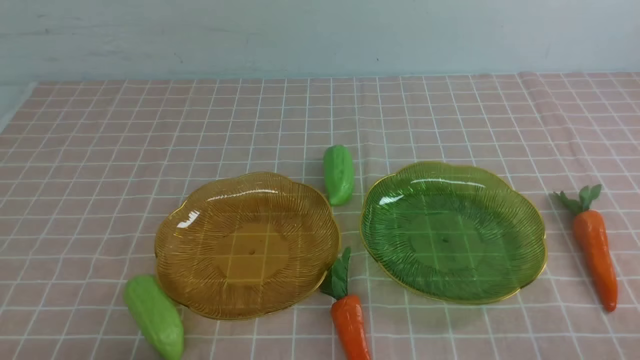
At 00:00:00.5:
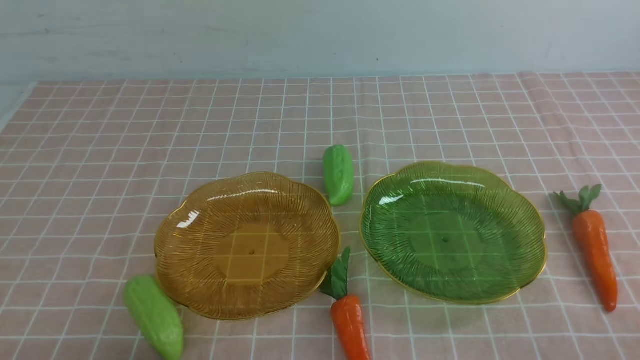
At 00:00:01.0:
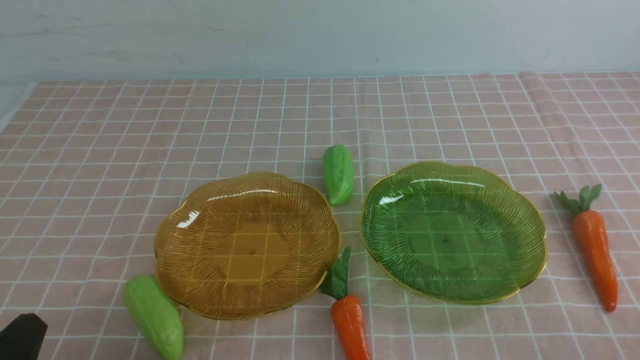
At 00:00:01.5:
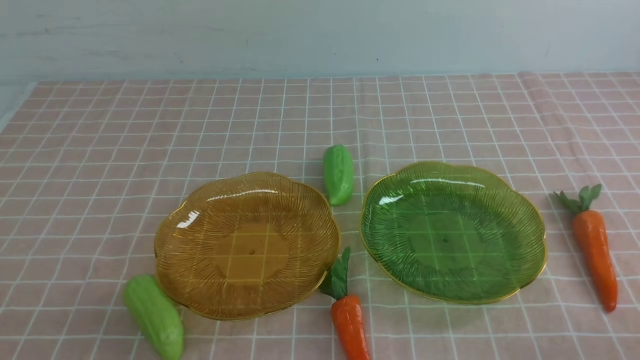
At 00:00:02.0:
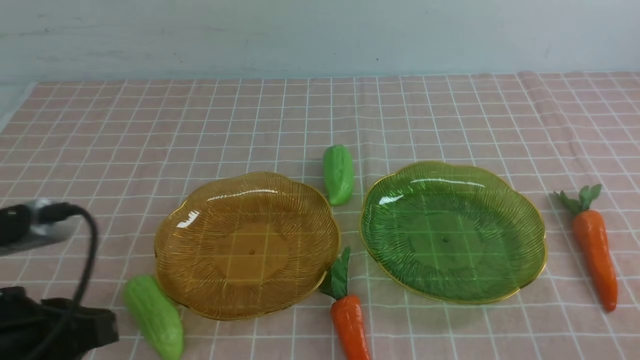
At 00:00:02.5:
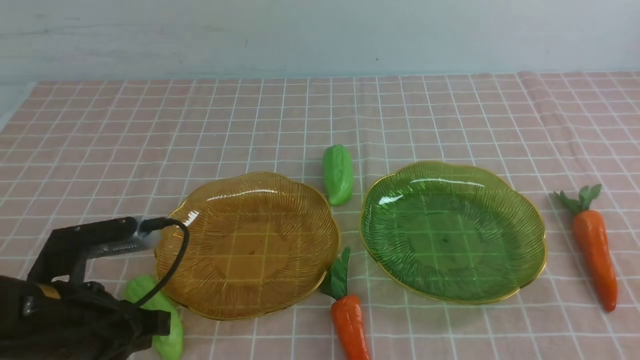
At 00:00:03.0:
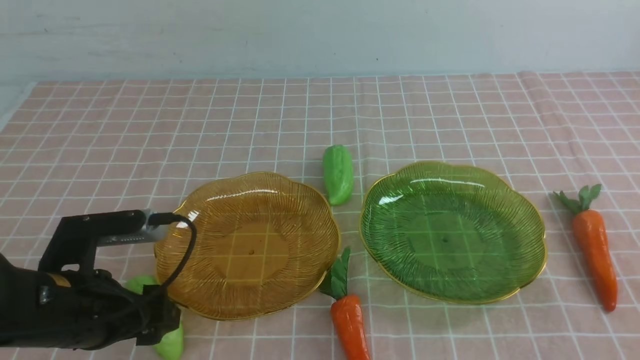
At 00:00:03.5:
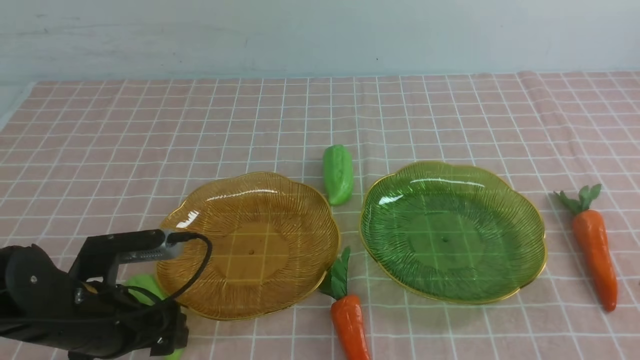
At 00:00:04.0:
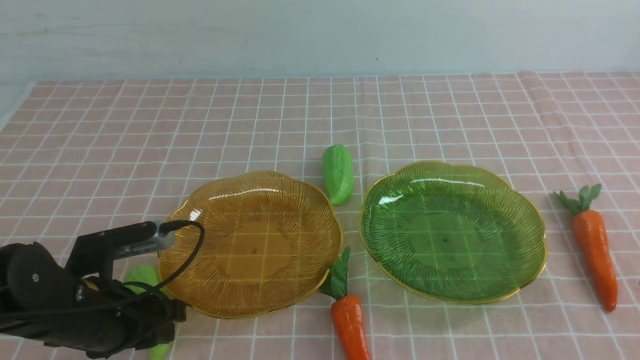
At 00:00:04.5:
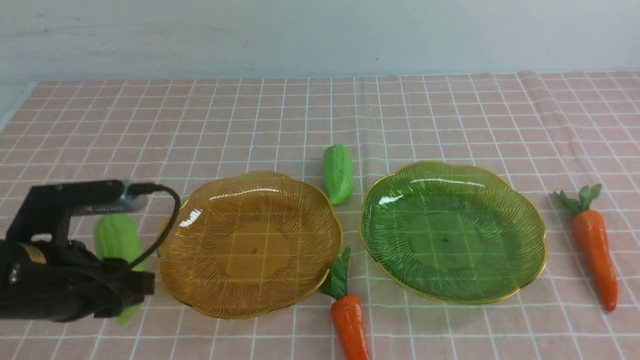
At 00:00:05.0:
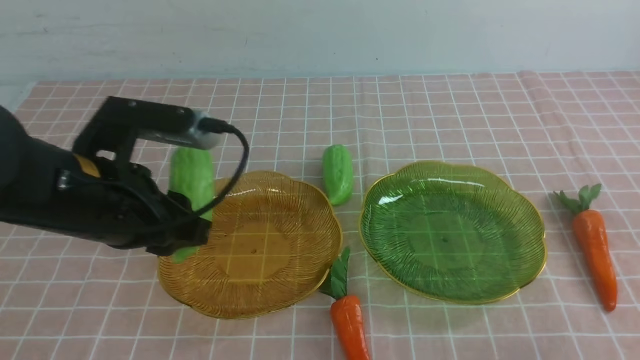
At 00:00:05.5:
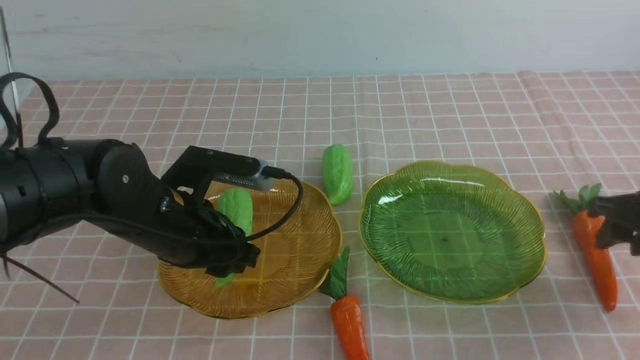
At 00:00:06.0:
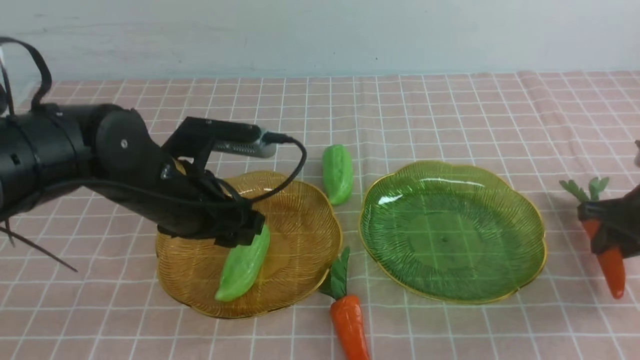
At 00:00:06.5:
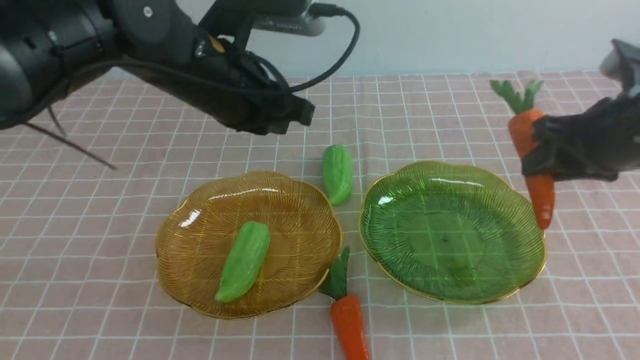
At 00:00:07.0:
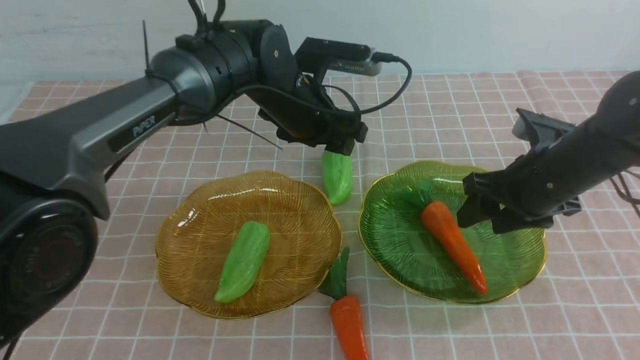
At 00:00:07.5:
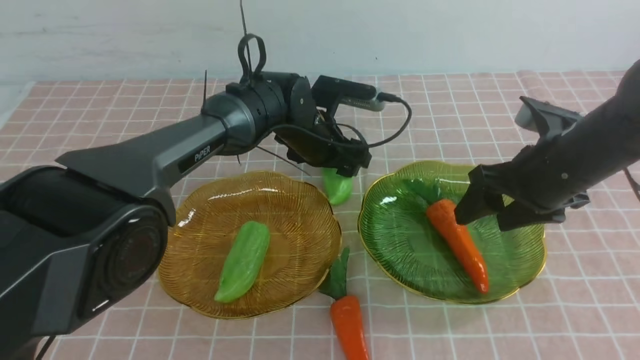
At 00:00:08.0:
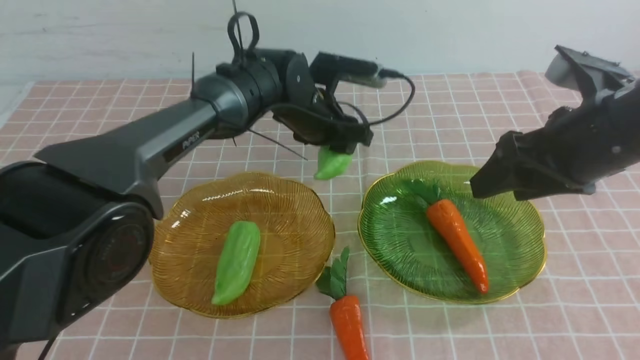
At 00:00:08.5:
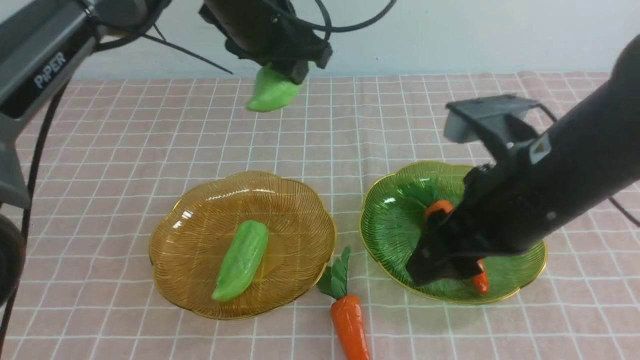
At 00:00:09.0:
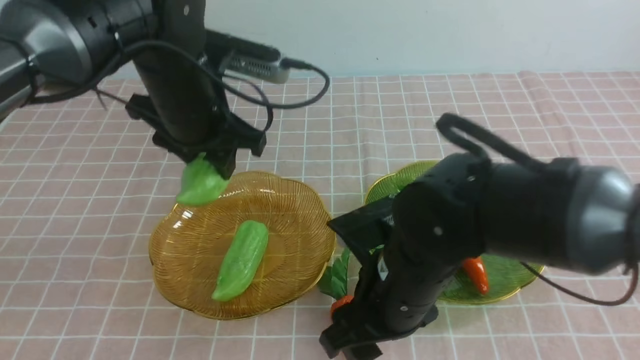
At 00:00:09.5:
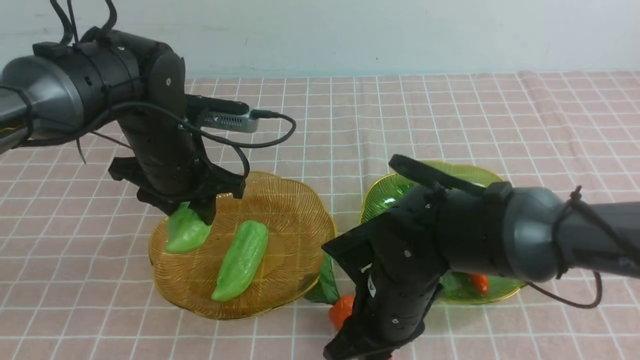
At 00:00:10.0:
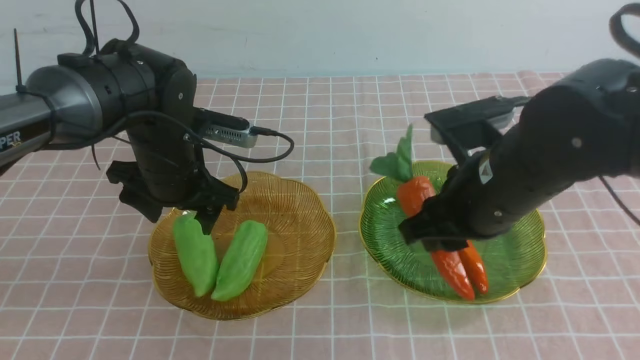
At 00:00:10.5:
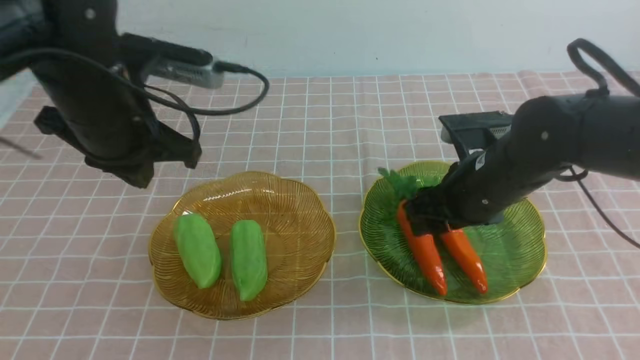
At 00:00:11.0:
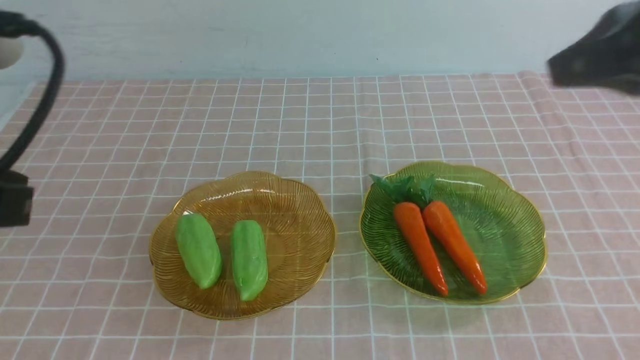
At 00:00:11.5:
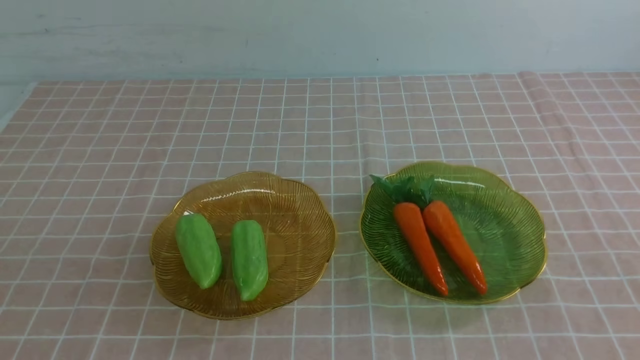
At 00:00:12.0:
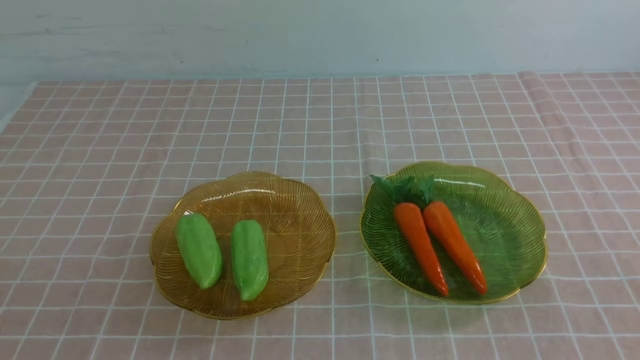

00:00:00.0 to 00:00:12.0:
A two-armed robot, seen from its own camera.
Step, 00:00:00.0 to 00:00:05.5: use the left arm to grab a chayote and put it into the left plate.
Step, 00:00:06.0 to 00:00:06.5: use the right arm to grab a carrot and put it into the right plate.
Step, 00:00:07.0 to 00:00:10.0: use the left arm to grab a chayote and put it into the left plate.
00:00:00.0 to 00:00:02.0: The left gripper moves upward and forward, some 15 cm.
00:00:02.0 to 00:00:04.0: The left gripper is displaced downward and forward by roughly 10 cm, and opens its fingers.
00:00:04.0 to 00:00:06.0: The left gripper shifts about 25 cm forward, to the right and upward. Meanwhile the right gripper goes approximately 25 cm forward, and opens its fingers.
00:00:06.0 to 00:00:08.0: The left gripper moves some 10 cm downward and comes back. The right gripper travels to the left and backward by some 20 cm, and opens.
00:00:08.0 to 00:00:10.0: The left gripper is displaced backward, to the left and upward by some 20 cm, and closes its fingers; the right gripper goes some 15 cm to the right, forward and upward, and closes its fingers.
00:00:10.0 to 00:00:12.0: The right gripper shifts roughly 30 cm backward and to the right, and closes up. Meanwhile the left gripper heads backward and downward, covering approximately 25 cm.

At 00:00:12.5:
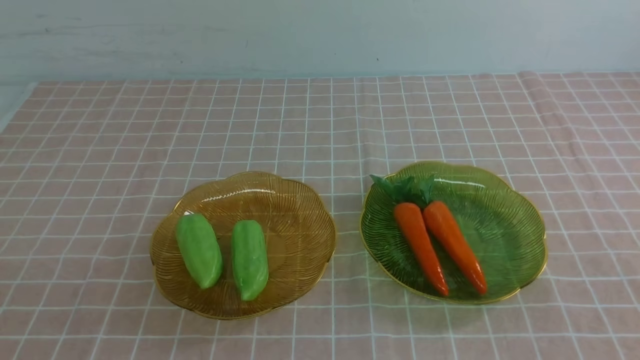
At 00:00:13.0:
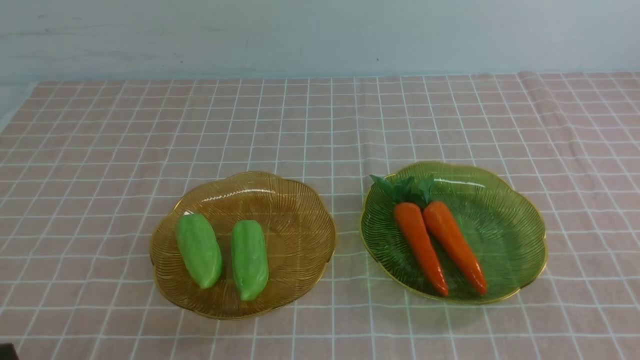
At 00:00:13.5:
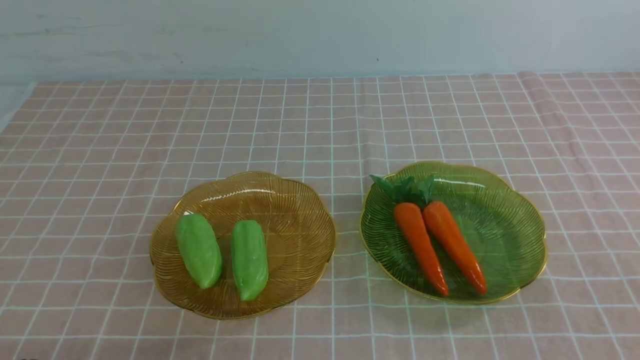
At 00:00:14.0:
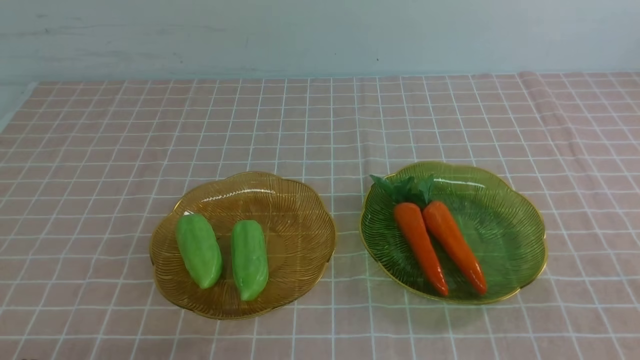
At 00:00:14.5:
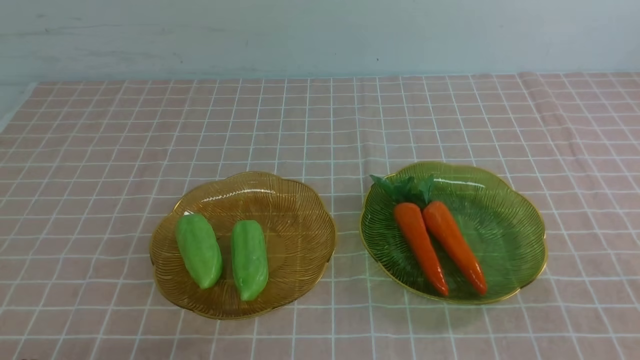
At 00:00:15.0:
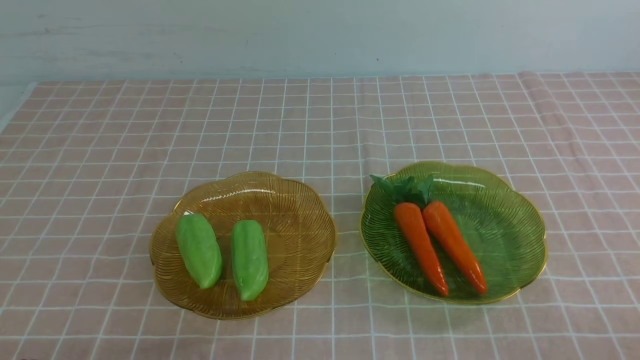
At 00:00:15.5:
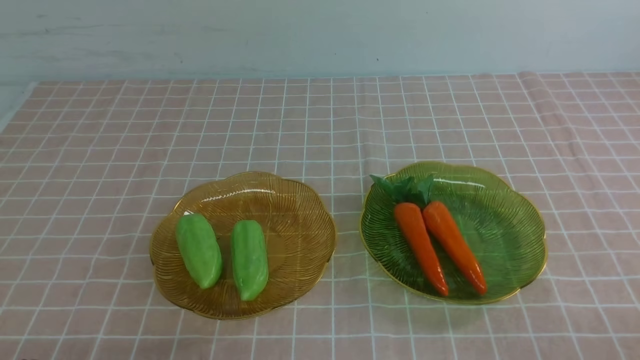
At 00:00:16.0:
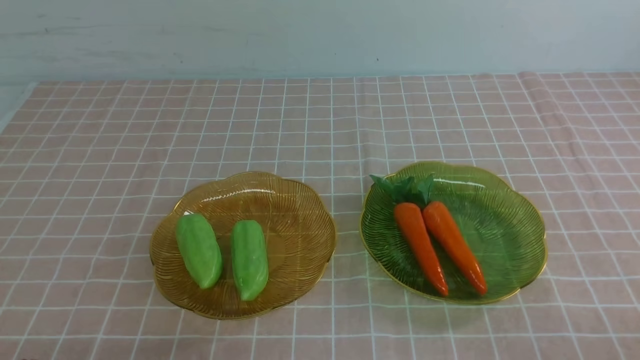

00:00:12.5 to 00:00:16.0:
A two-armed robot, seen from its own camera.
00:00:14.5 to 00:00:16.0: The two grippers keep their place.
